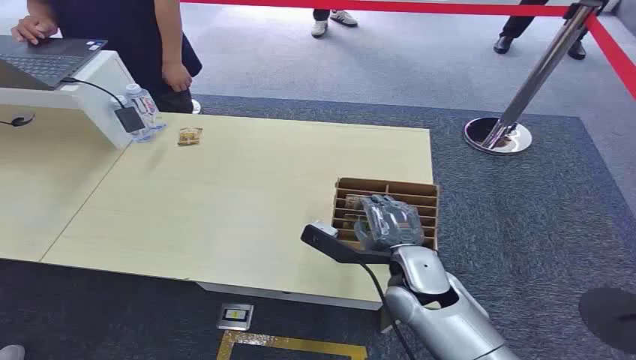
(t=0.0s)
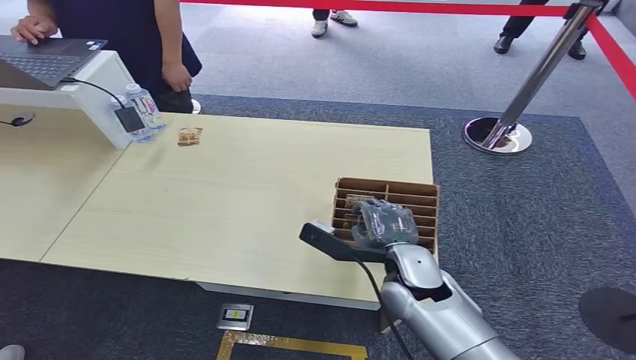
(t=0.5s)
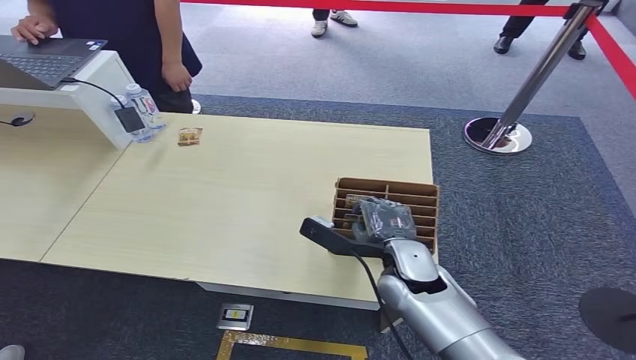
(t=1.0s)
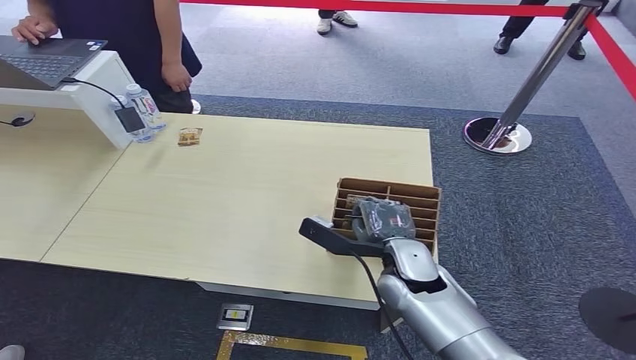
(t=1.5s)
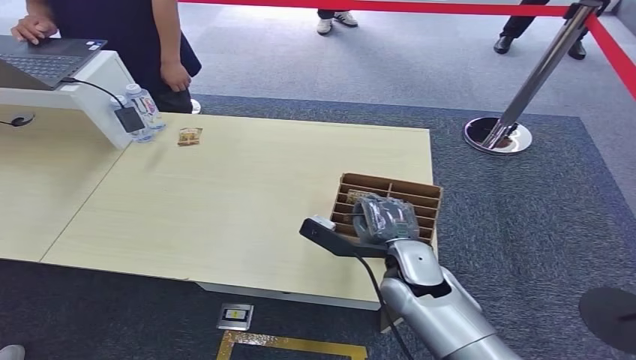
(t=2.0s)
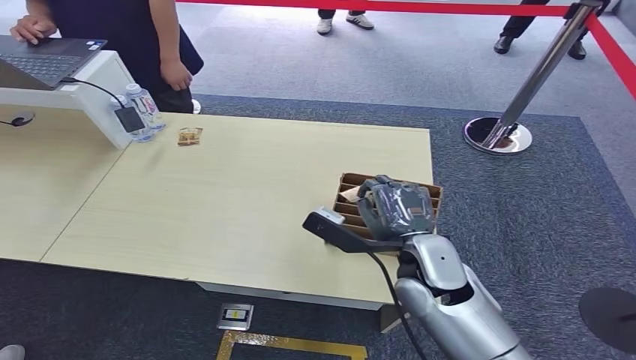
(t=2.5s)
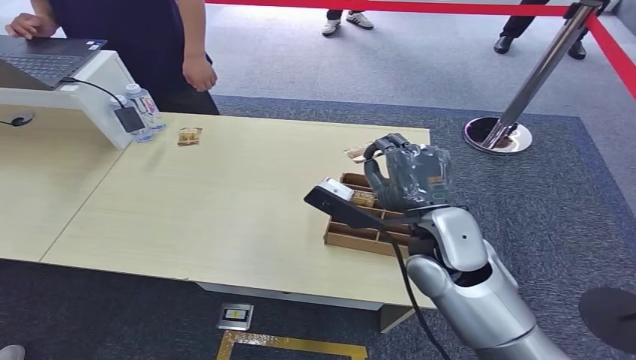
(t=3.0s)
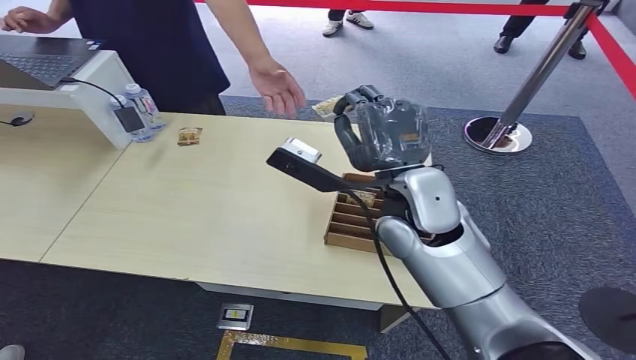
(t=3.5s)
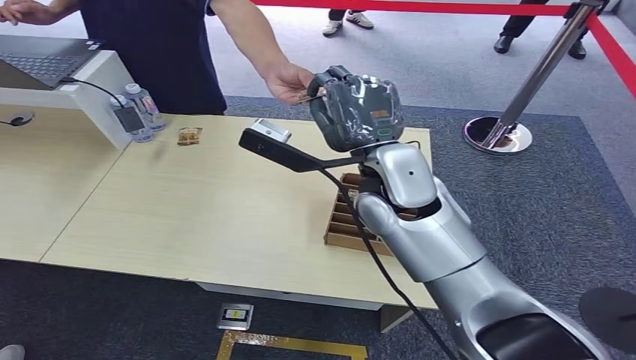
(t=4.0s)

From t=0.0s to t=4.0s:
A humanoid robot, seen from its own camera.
Step, from t=0.0s to t=2.0s: Pick up the room card from the card holder.
Step, from t=3.0s to t=4.0s: Hand the room card to the target.

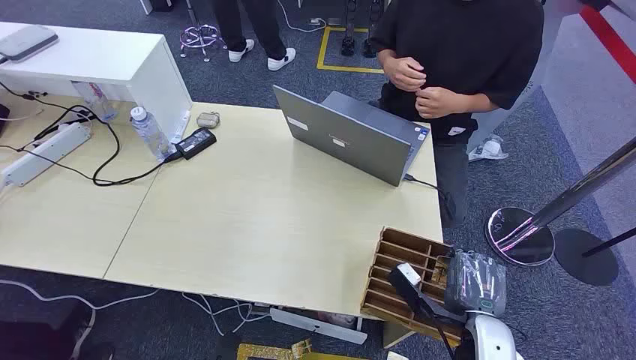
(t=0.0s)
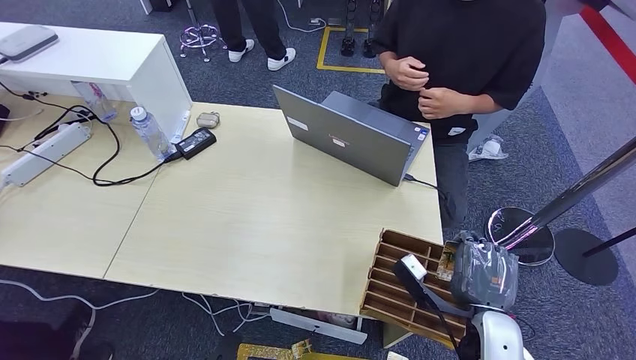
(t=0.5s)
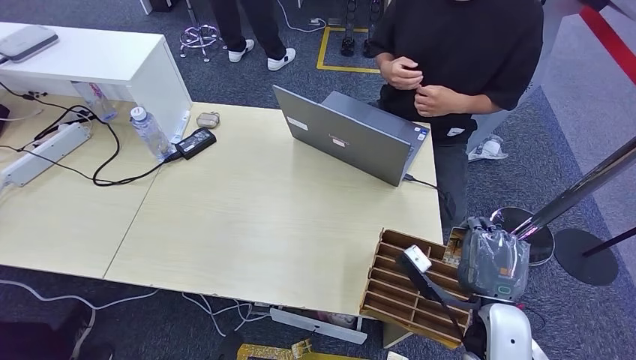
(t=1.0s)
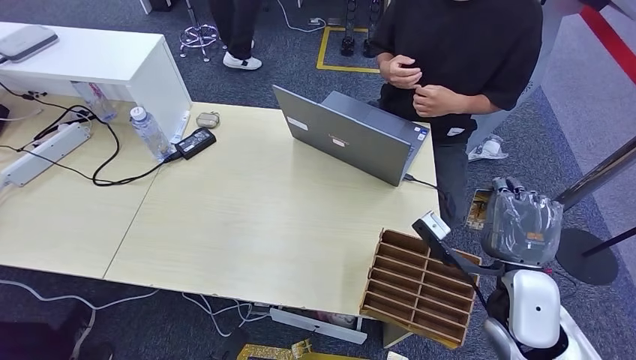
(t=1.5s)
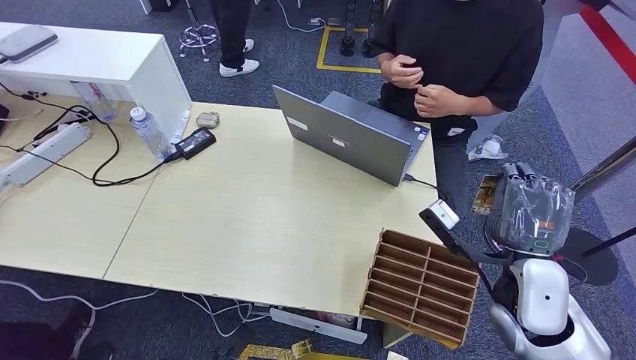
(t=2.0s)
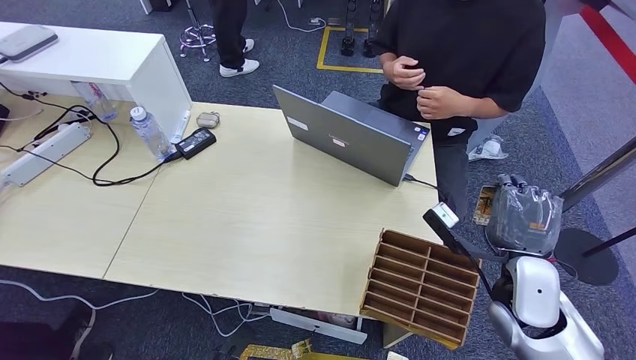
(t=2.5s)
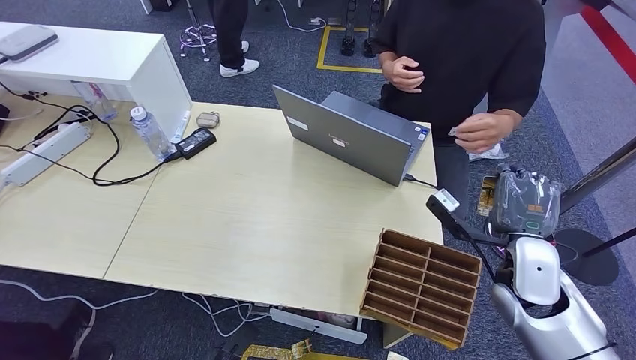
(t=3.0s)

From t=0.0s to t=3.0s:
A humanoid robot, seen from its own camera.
Step, from t=0.0s to t=1.5s: Pick up the room card from the card holder.
Step, from t=2.0s to t=3.0s: Hand the room card to the target.
From t=1.5s to t=3.0s: The right hand shifts some 5 cm forward.

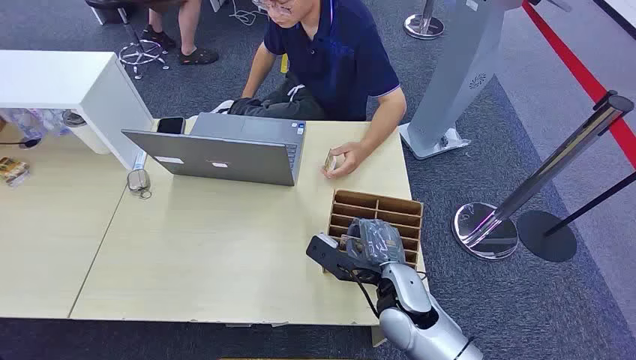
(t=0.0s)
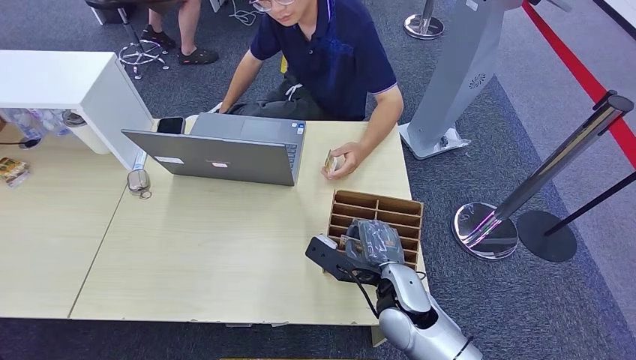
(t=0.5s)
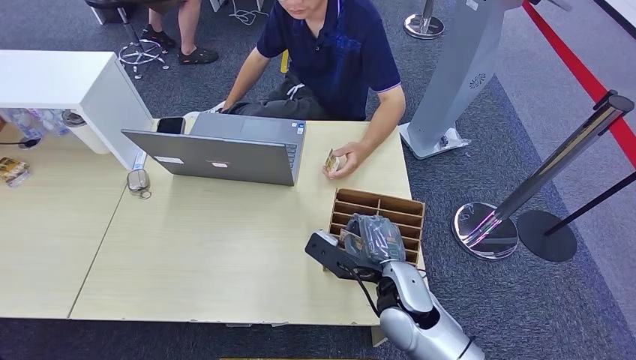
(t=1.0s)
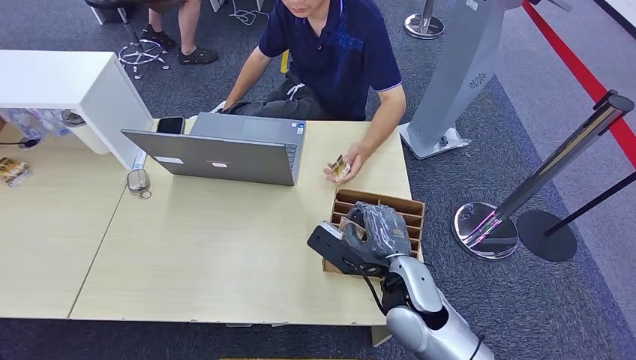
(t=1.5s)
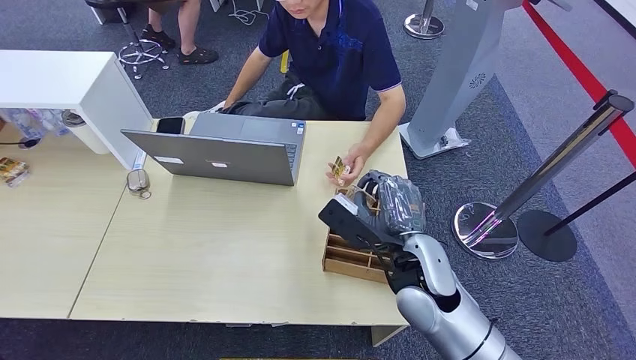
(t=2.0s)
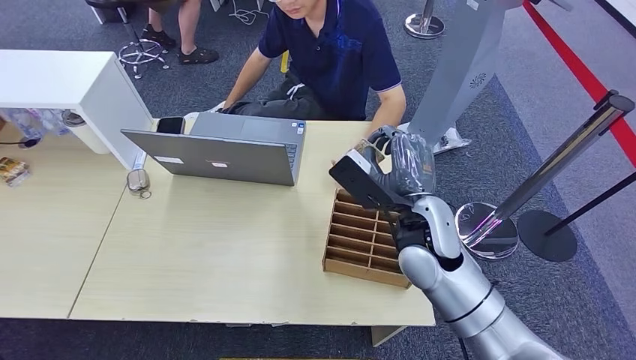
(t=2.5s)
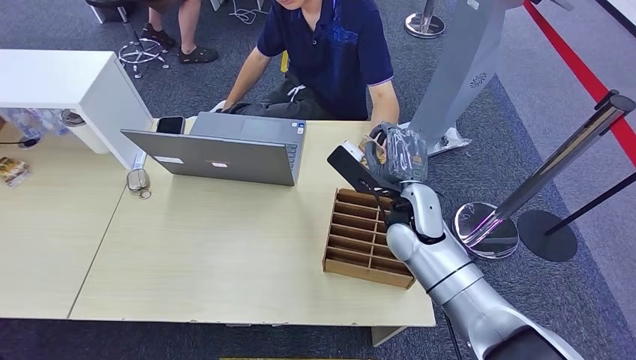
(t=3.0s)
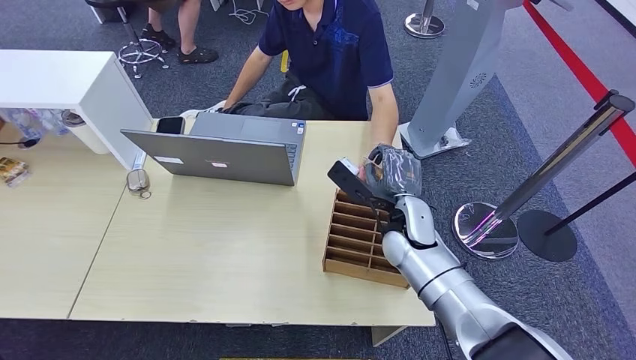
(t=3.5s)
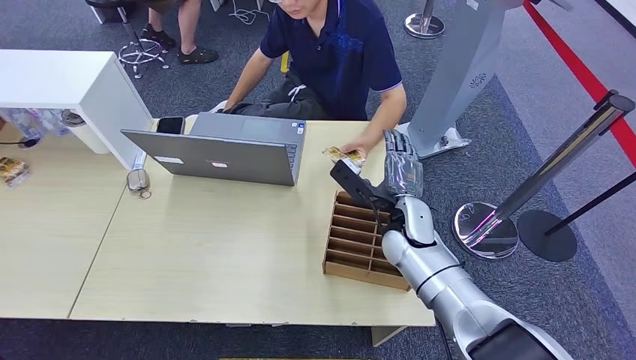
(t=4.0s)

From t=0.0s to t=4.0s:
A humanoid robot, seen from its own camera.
Step, from t=0.0s to t=1.5s: Pick up the room card from the card holder.
From t=2.0s to t=4.0s: The left hand changes place by approximately 5 cm; the right hand goes some 10 cm forward and downward.
